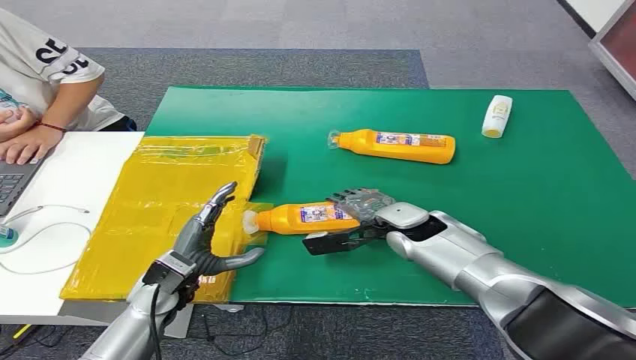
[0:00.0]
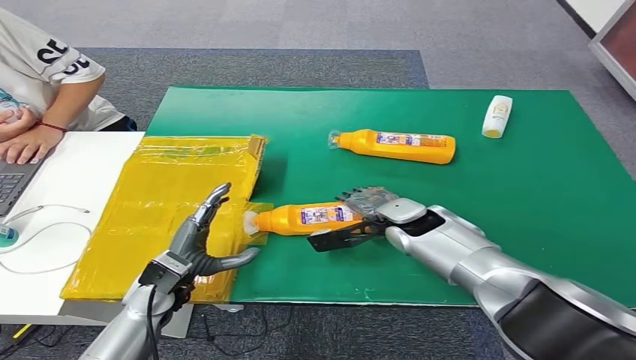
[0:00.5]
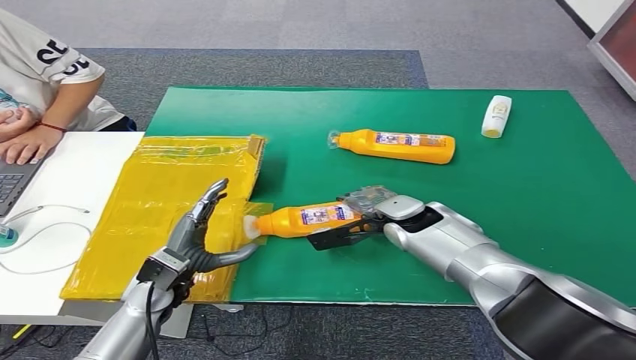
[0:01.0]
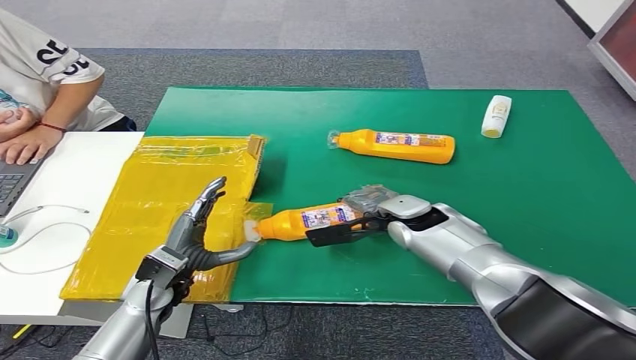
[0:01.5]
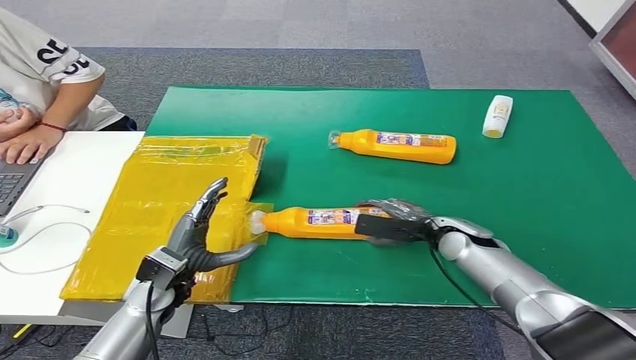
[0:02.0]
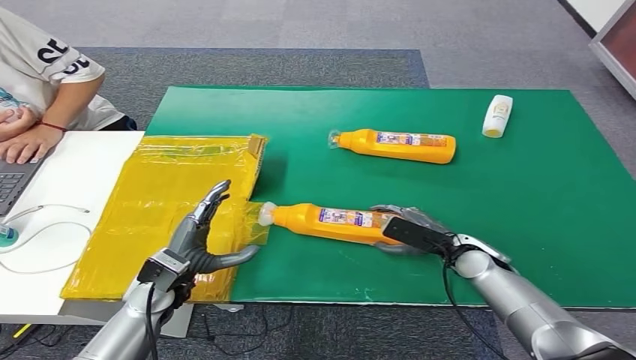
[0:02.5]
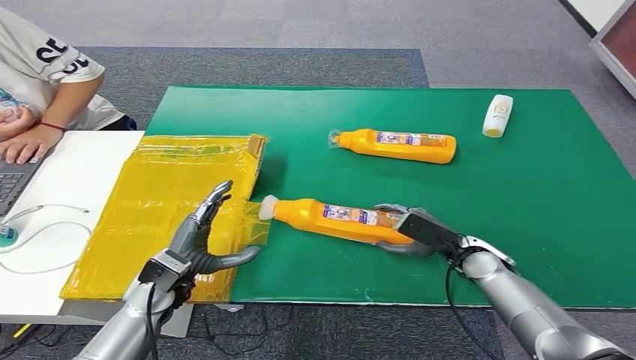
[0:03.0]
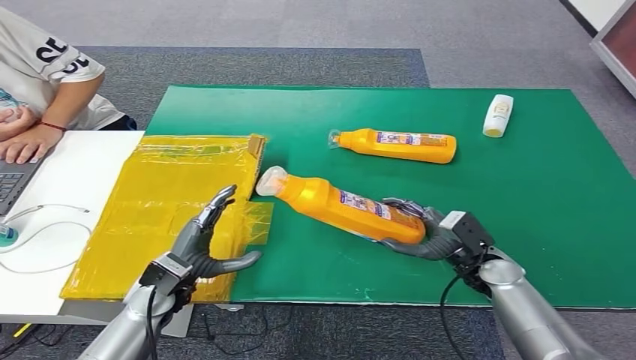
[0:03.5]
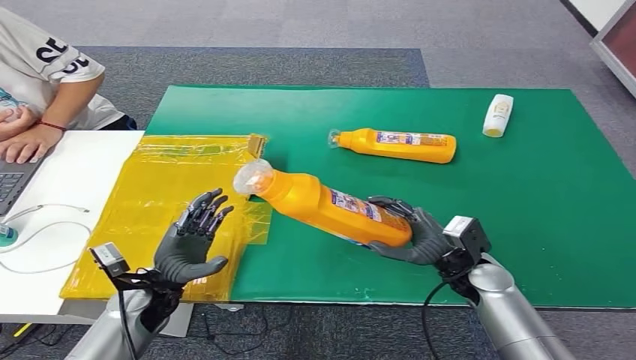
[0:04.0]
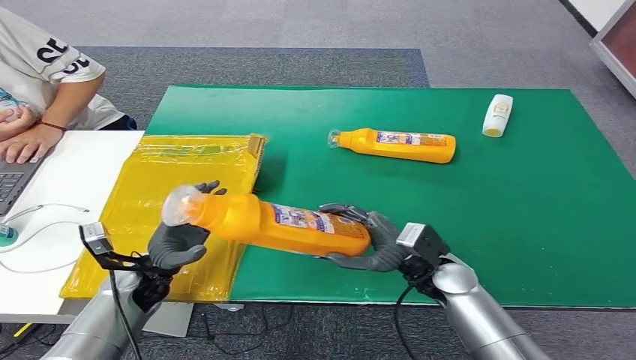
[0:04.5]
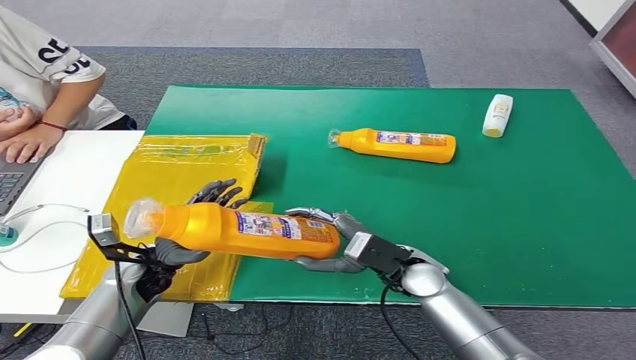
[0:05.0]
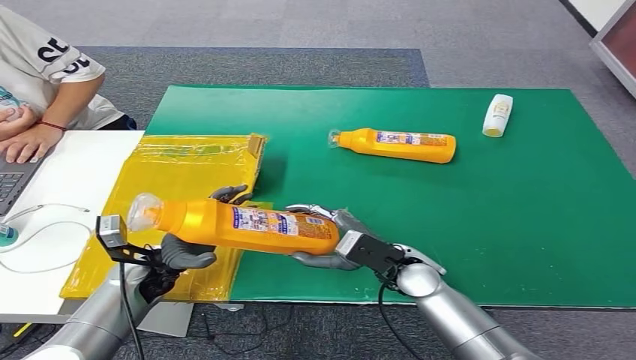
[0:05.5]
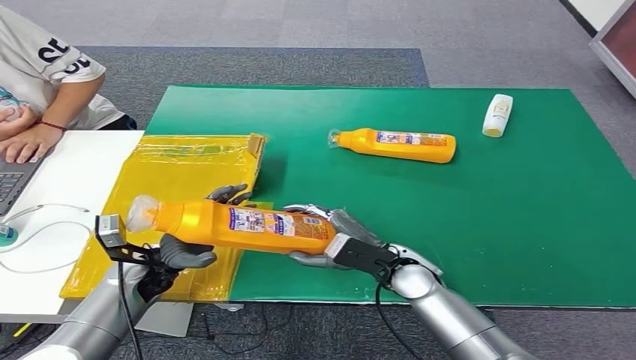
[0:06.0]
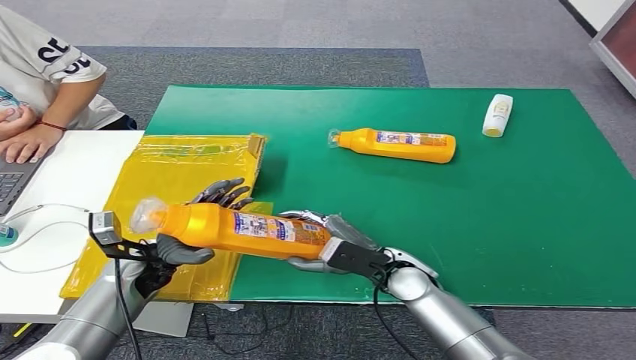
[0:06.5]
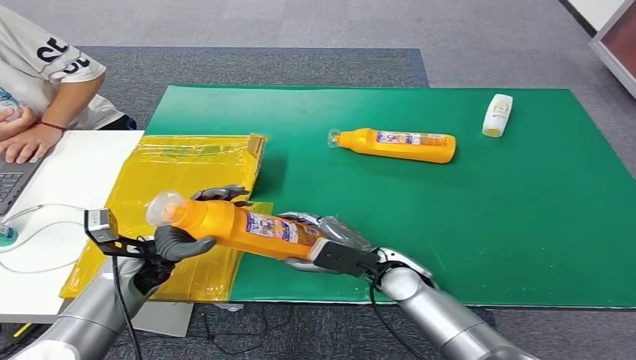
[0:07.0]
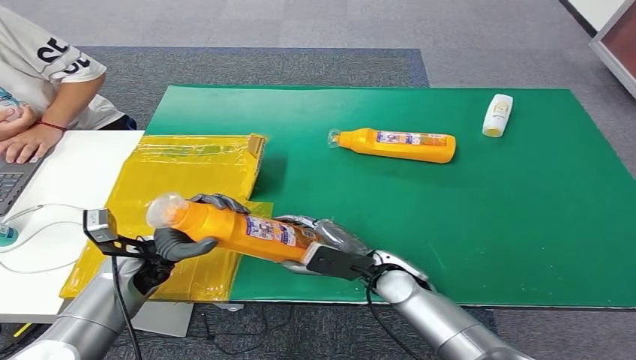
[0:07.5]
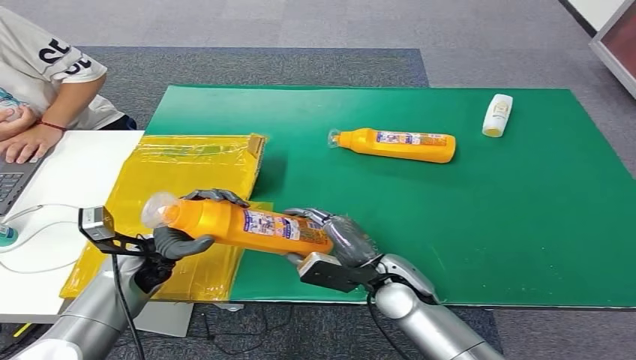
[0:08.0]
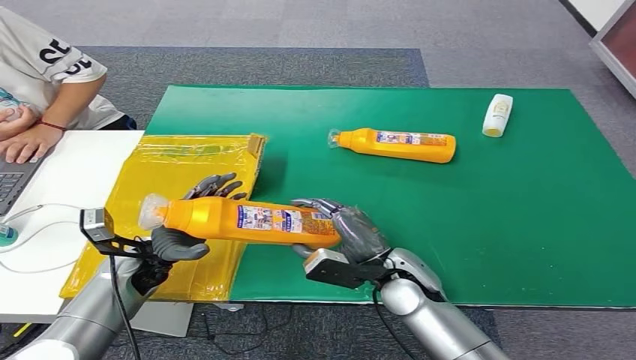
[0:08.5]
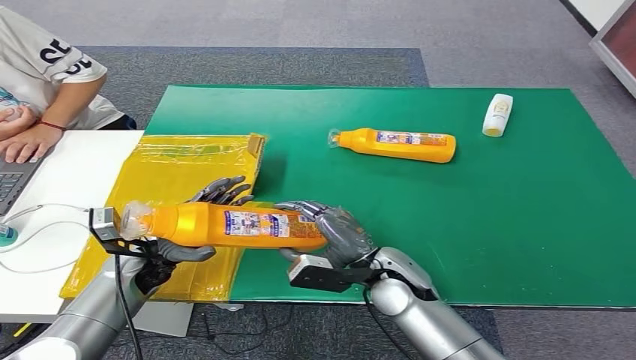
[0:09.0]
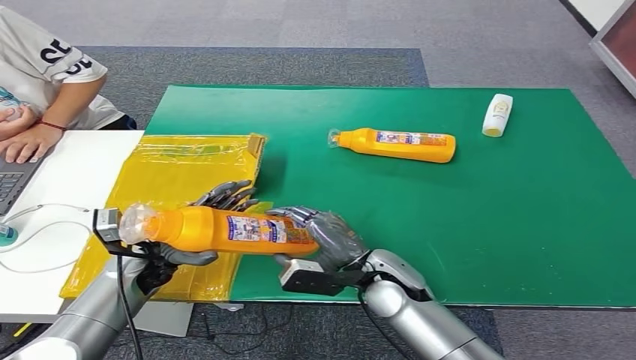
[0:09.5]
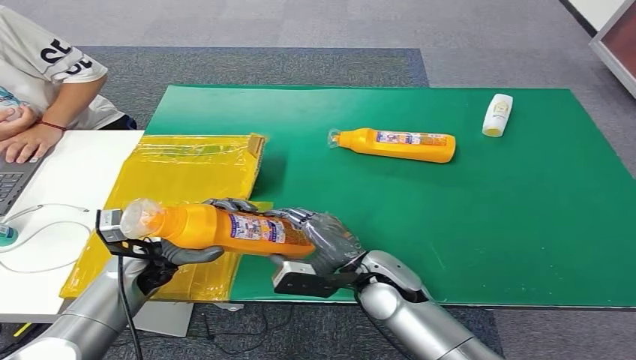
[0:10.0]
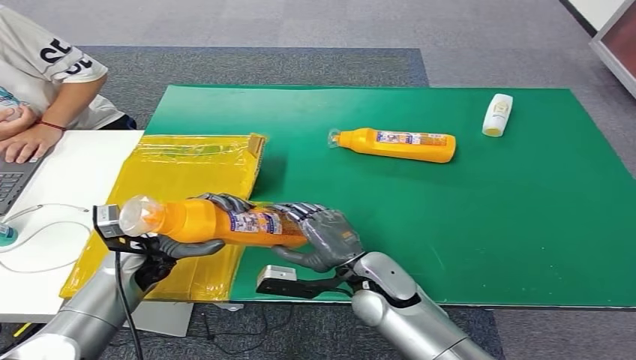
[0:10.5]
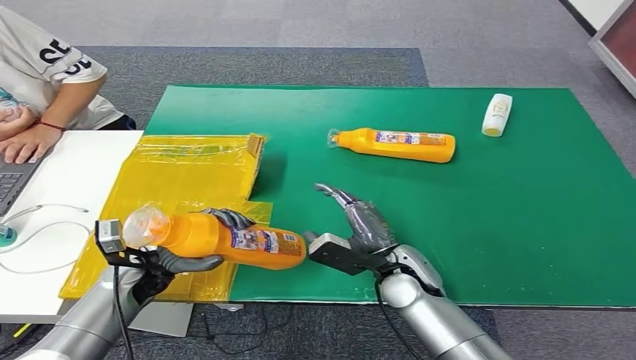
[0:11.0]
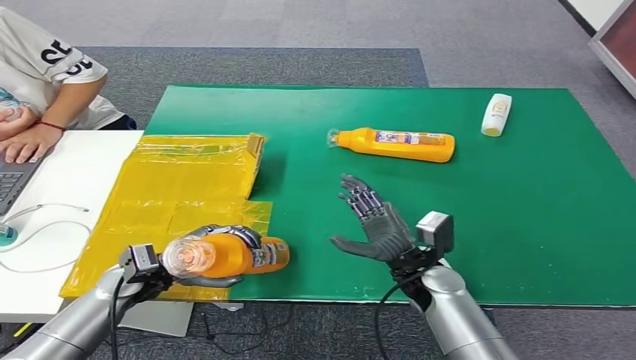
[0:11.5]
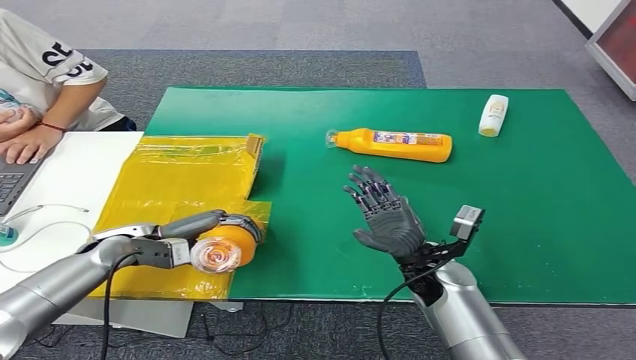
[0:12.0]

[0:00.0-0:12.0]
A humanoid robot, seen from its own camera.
Step, 0:00.0 to 0:02.5: Pick up the bottle from the table.
0:02.0 to 0:04.0: The right hand goes about 5 cm backward.
0:04.0 to 0:06.0: The right hand travels to the left by roughly 10 cm.
0:06.0 to 0:08.0: The hands stay close to where they were, moving slightly.
0:08.0 to 0:10.0: The hands stay close to where they were, moving slightly.

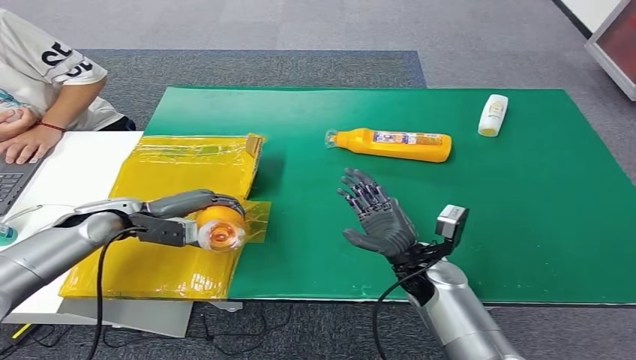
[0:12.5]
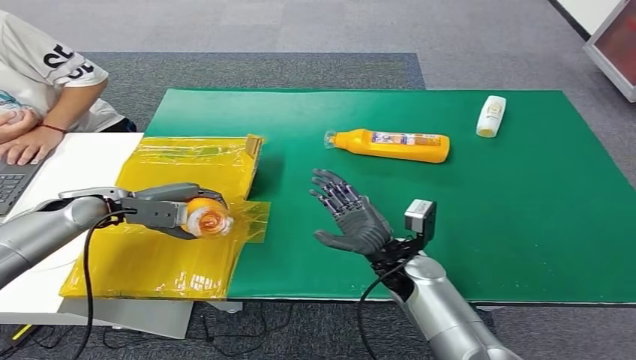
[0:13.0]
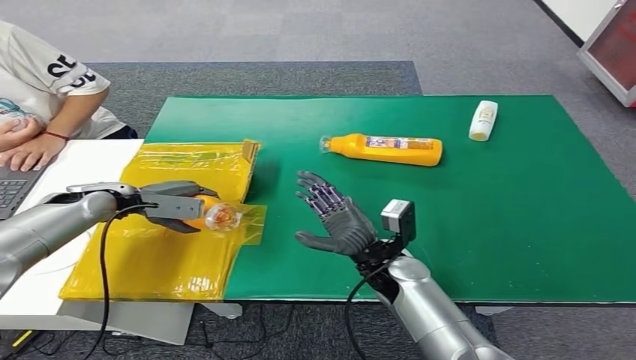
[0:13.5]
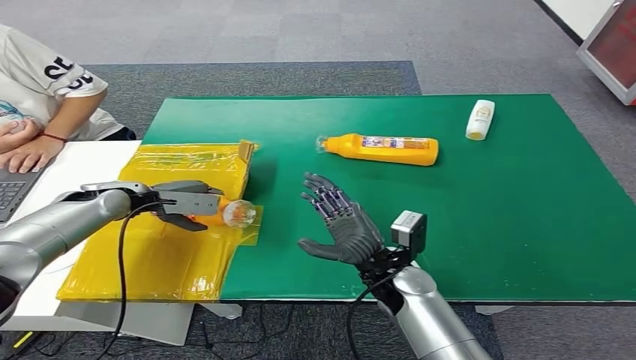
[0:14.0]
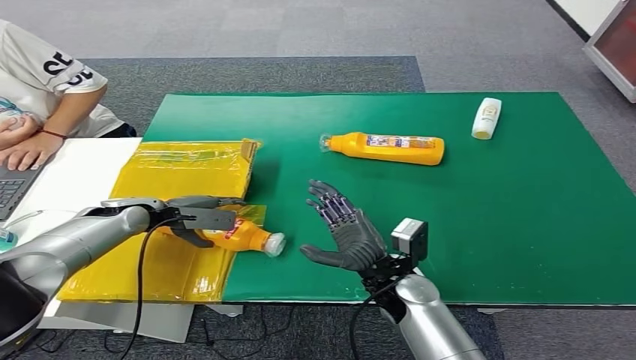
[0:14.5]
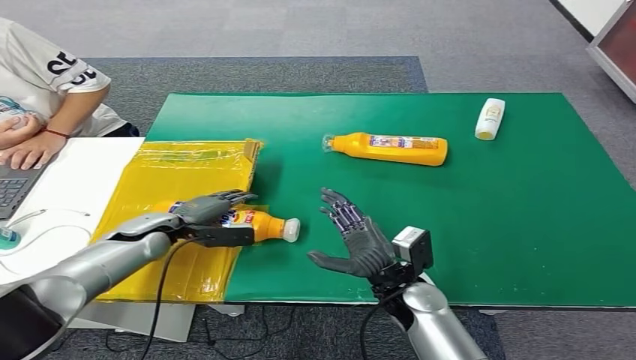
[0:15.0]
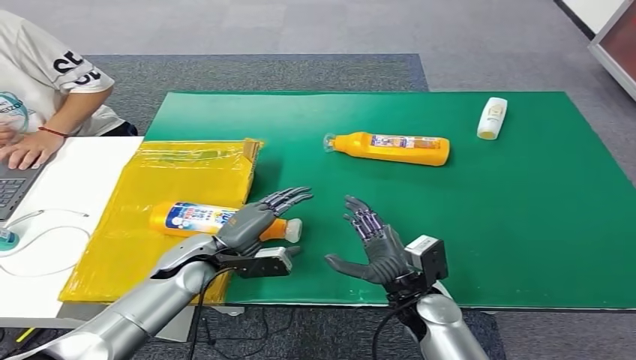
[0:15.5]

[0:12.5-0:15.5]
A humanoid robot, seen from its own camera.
Step, 0:12.5 to 0:15.5: Turn the bottle to the front side.

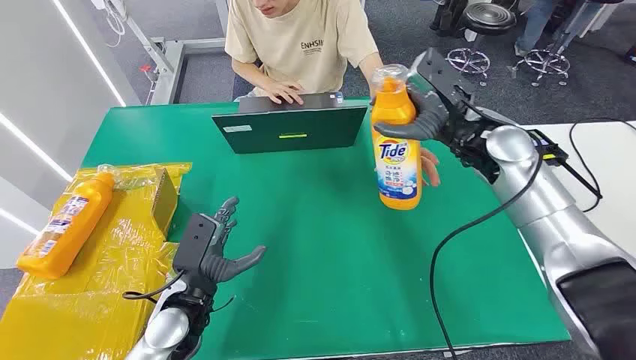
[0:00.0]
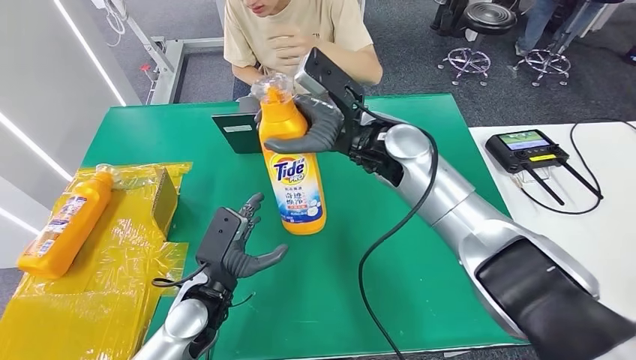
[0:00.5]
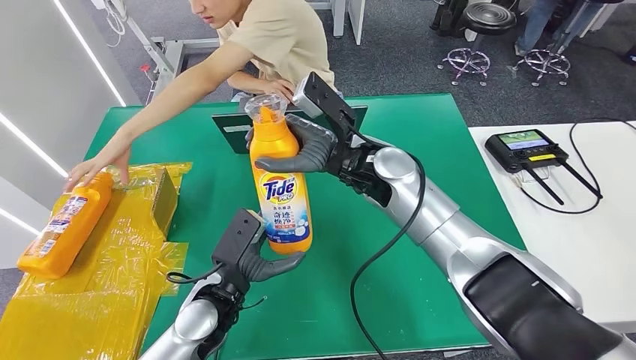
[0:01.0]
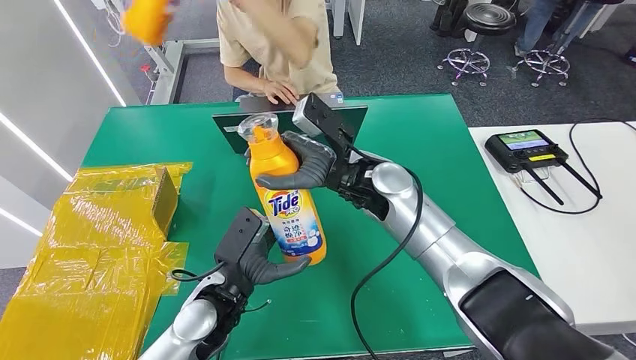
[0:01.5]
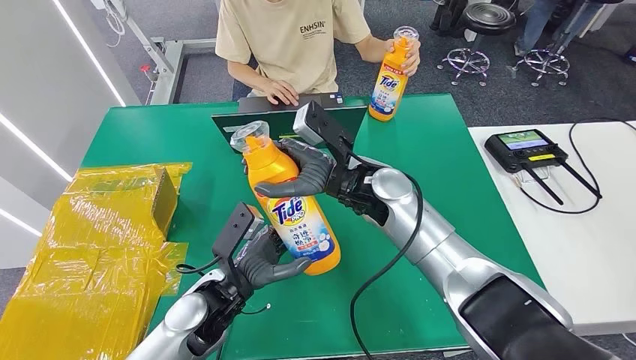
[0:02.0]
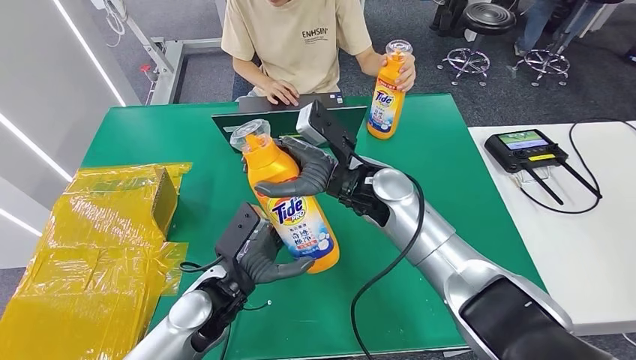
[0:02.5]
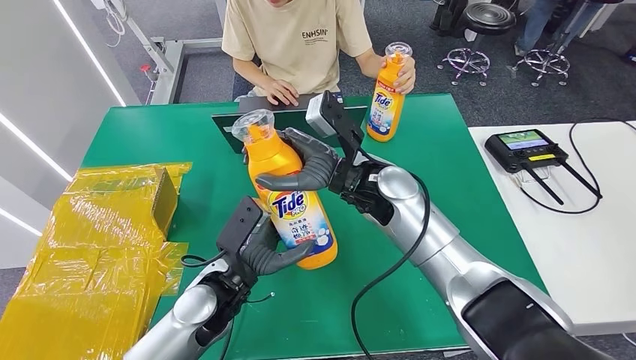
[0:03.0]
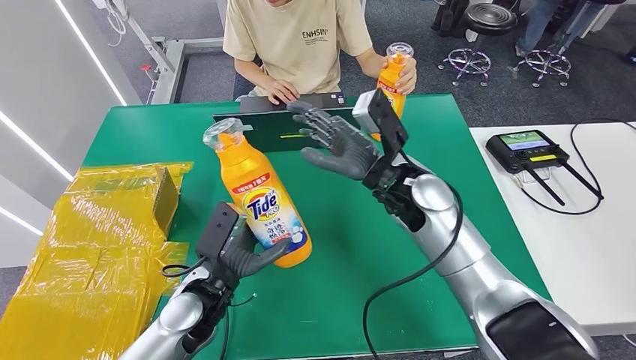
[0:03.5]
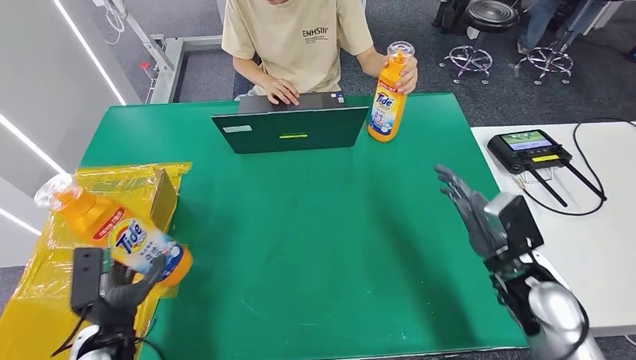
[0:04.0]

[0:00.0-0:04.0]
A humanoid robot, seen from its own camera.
Step, 0:00.5 to 0:04.0: Turn the bottle to the front side.

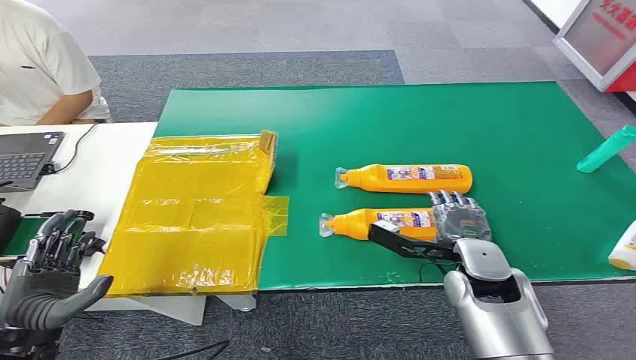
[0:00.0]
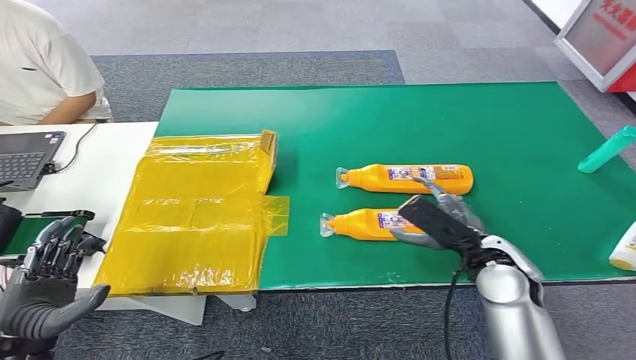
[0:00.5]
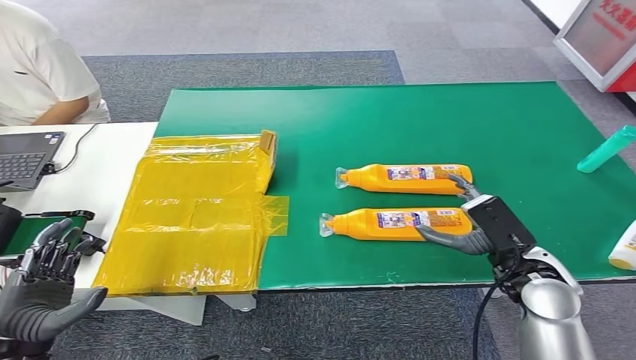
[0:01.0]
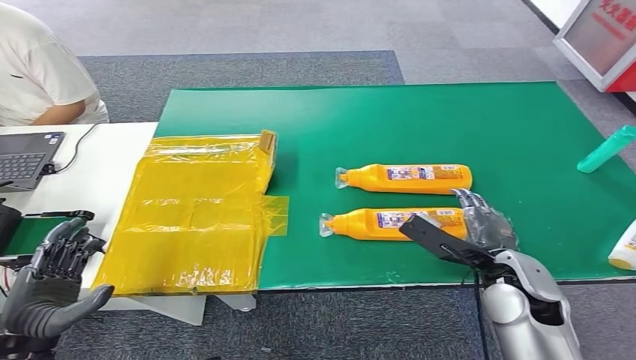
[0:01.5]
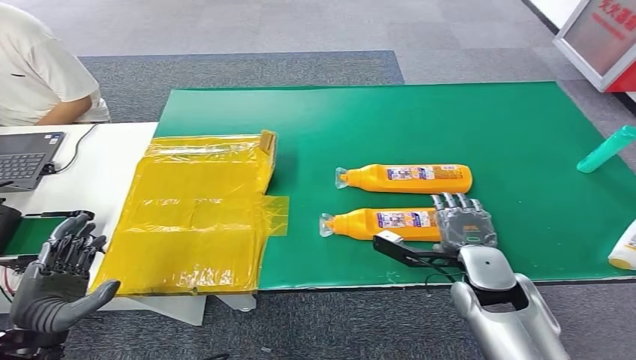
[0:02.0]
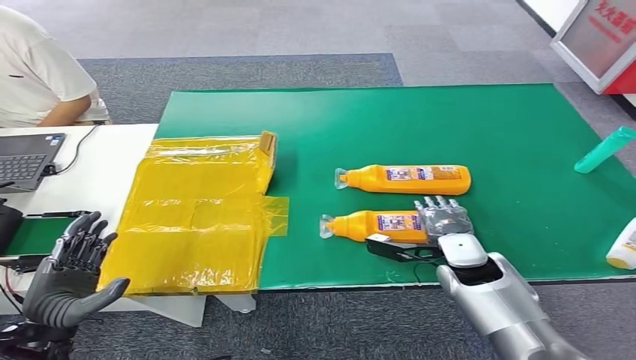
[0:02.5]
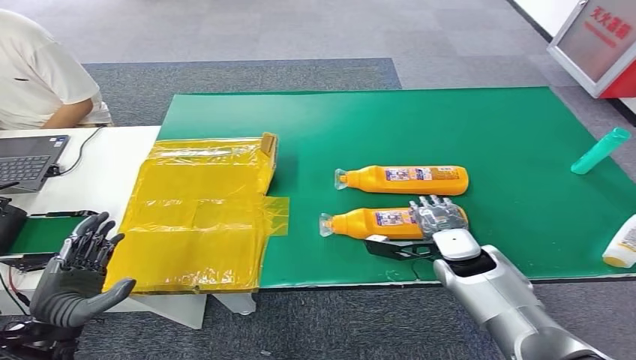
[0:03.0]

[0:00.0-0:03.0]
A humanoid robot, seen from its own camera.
0:01.5 to 0:03.0: The right hand travels forward and downward by roughly 10 cm.
